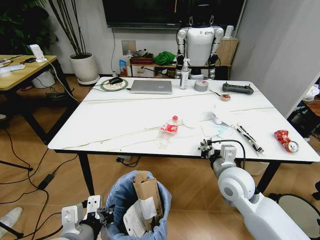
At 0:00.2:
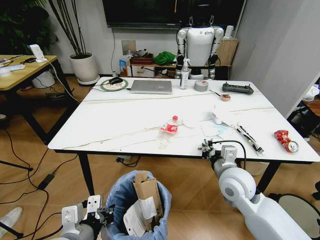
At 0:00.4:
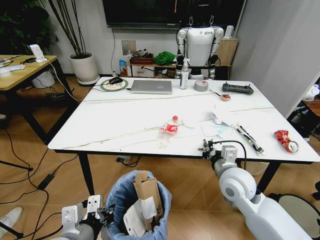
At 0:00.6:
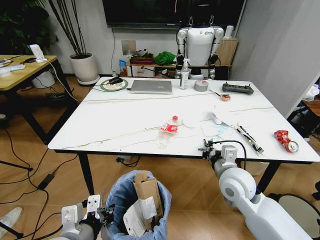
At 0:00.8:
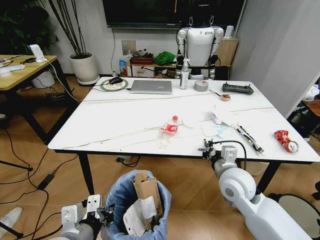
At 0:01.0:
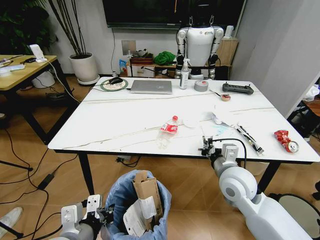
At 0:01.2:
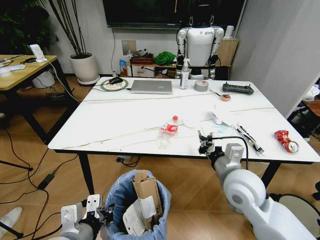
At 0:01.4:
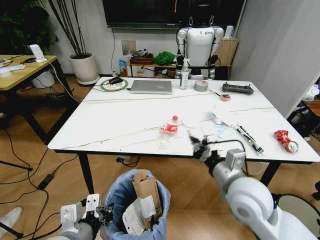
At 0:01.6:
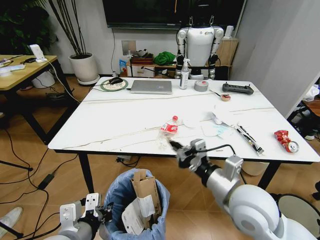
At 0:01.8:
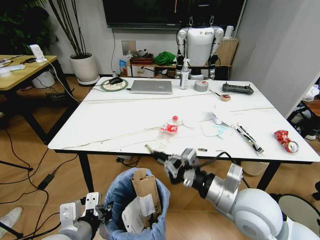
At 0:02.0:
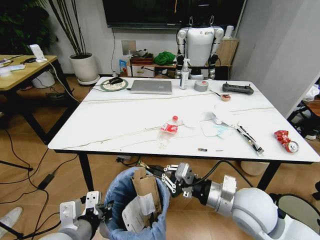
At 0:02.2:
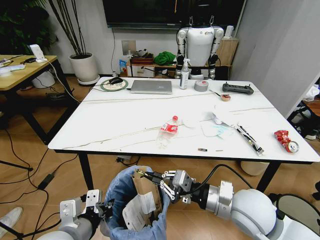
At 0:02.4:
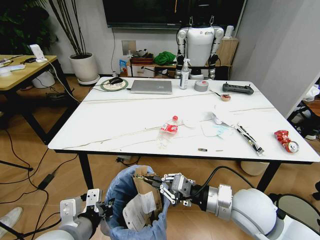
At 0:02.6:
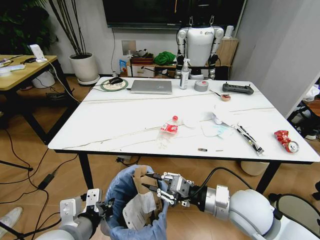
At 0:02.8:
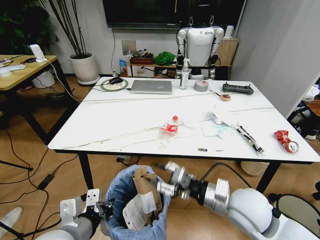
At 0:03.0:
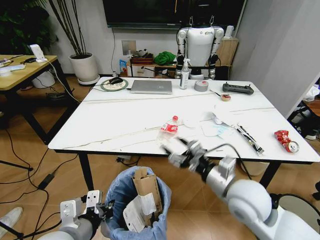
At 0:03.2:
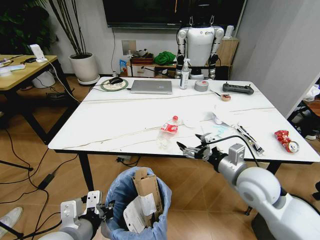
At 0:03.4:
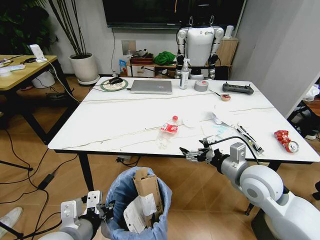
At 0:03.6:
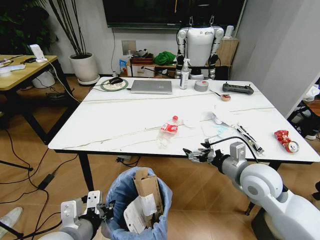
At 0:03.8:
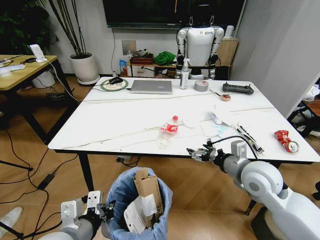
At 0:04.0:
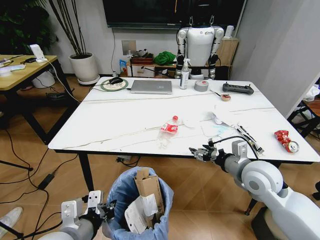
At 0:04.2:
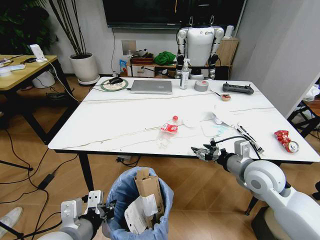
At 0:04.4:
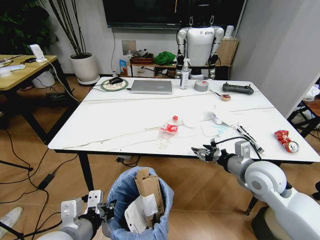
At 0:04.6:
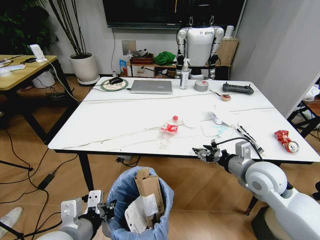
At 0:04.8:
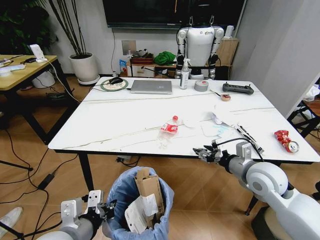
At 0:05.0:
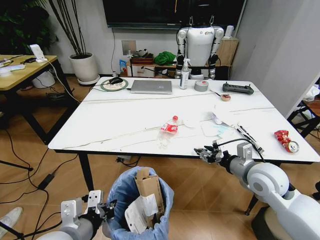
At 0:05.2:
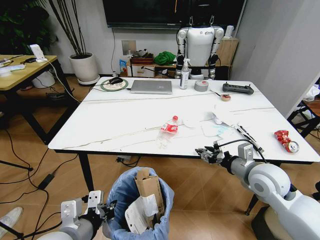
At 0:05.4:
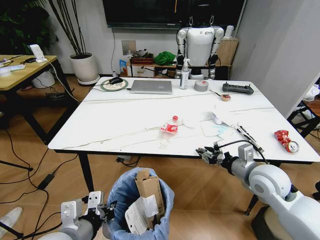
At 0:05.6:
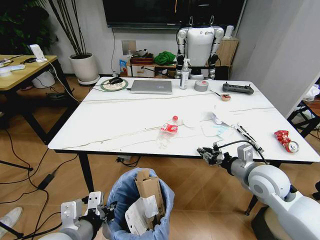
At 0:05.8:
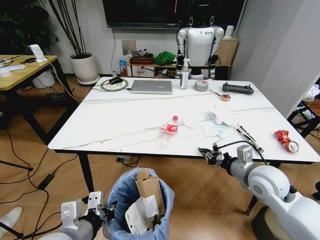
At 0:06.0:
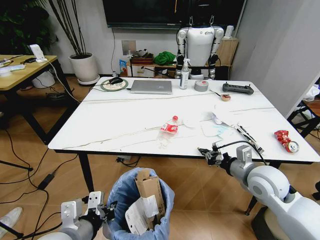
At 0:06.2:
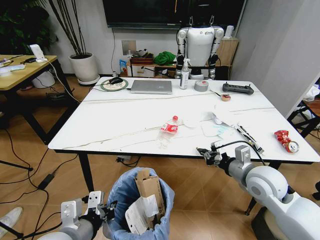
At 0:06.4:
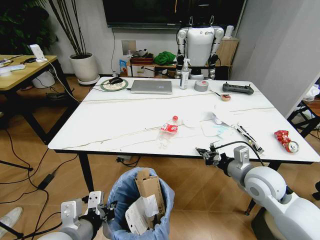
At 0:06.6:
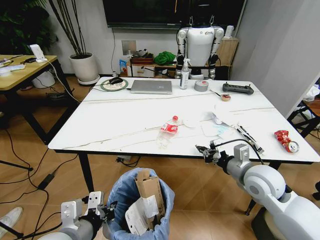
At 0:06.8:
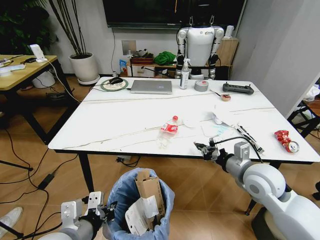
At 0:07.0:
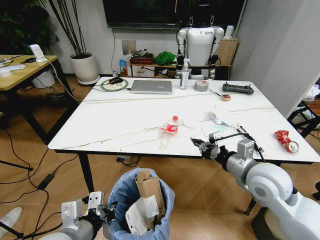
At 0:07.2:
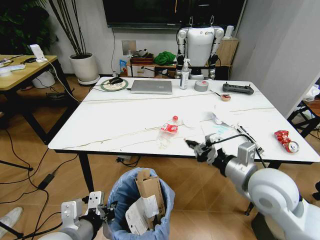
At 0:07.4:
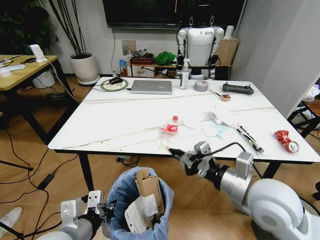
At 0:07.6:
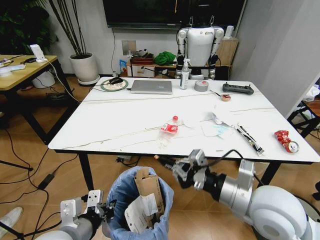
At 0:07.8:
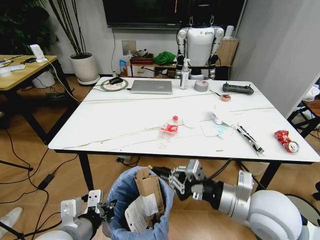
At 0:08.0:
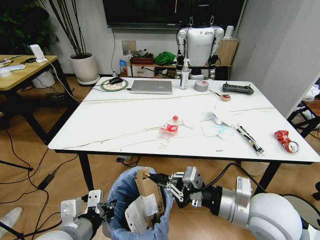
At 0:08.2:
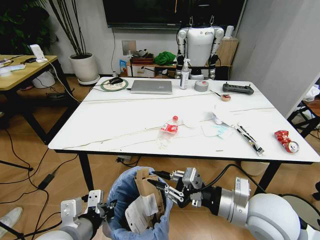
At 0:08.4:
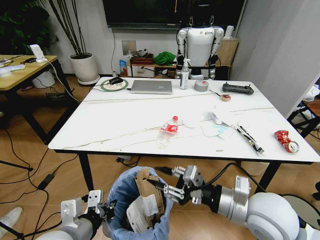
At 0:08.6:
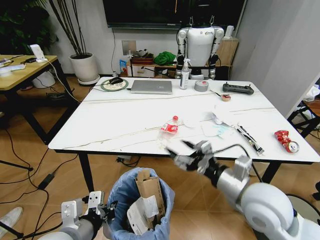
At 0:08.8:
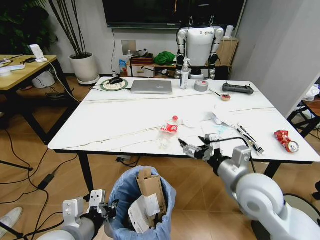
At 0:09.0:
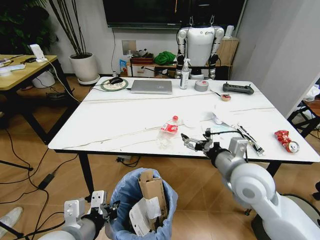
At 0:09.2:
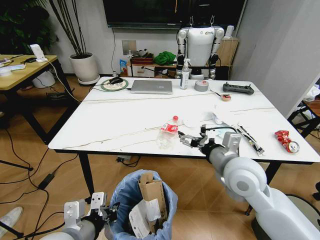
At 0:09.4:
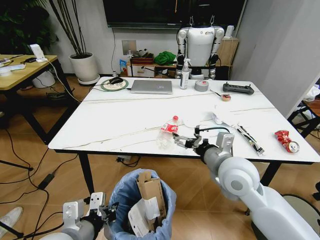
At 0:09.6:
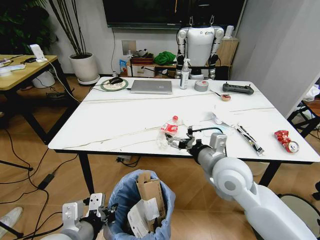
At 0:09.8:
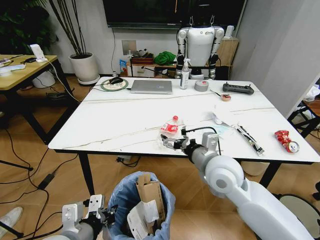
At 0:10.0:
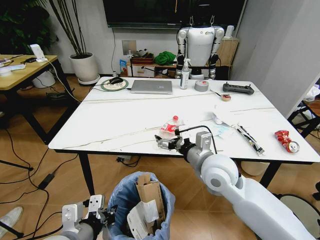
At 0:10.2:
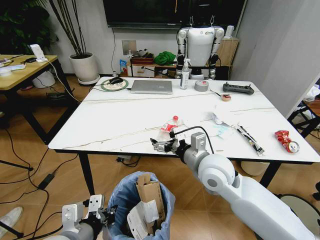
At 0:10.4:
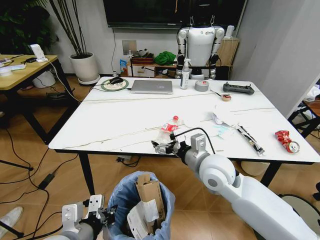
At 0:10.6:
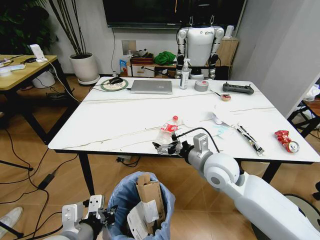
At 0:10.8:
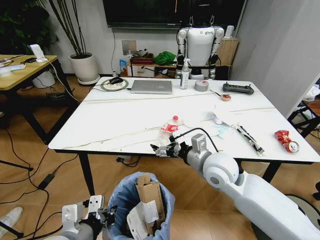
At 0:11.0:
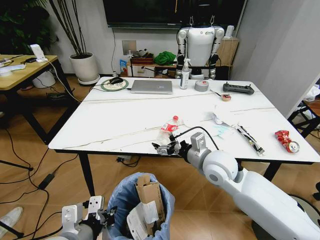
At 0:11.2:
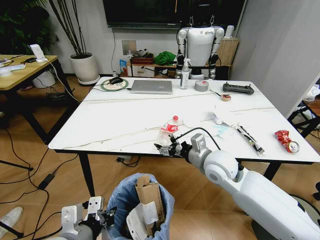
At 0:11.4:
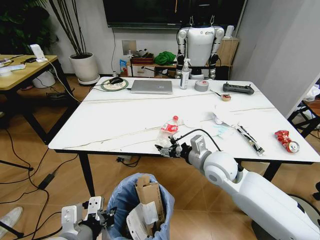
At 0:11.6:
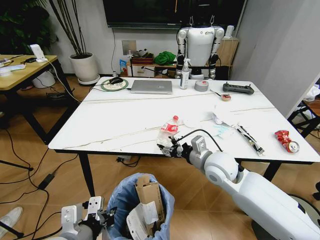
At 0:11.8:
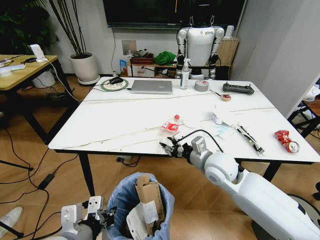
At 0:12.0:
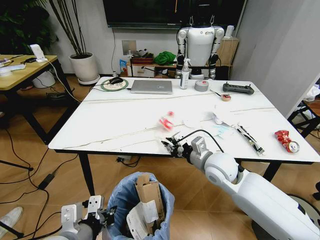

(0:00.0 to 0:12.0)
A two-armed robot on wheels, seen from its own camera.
Task of the whole recording: Pick up the trash bin and place the trash from the table into it.
0:00.0 - 0:01.6: The right gripper goes some 10 cm backward and upward.
0:01.6 - 0:03.0: The right gripper opens.
0:03.0 - 0:04.4: The right gripper shifts approximately 10 cm to the right and forward.
0:04.4 - 0:06.0: The right gripper closes up.
0:06.0 - 0:07.6: The right gripper goes roughly 15 cm backward, upward and to the left.
0:07.6 - 0:09.0: The right gripper goes about 5 cm forward, and opens up.
0:09.0 - 0:10.4: The right gripper moves to the left, some 5 cm.
0:10.4 - 0:12.0: The right gripper moves approximately 5 cm, and closes up.

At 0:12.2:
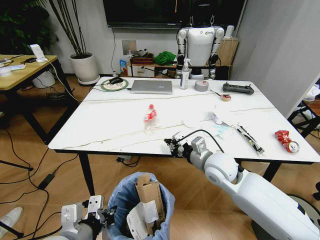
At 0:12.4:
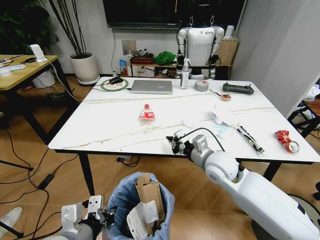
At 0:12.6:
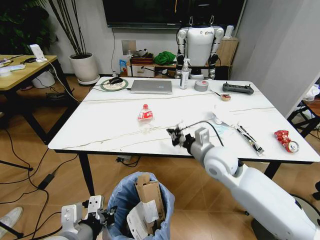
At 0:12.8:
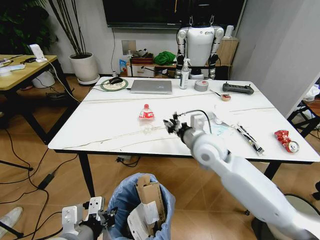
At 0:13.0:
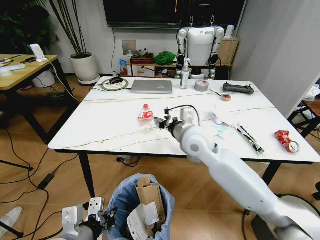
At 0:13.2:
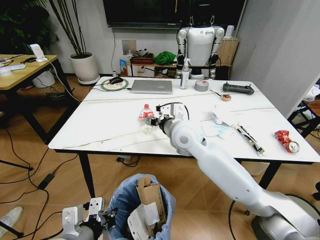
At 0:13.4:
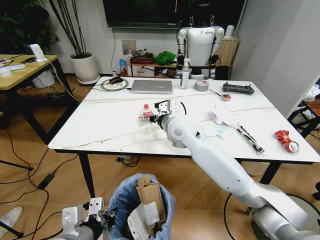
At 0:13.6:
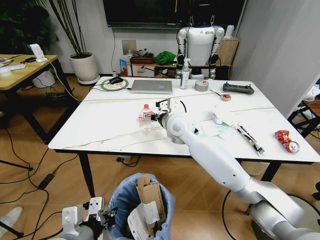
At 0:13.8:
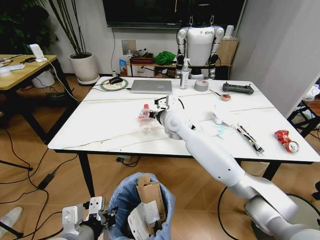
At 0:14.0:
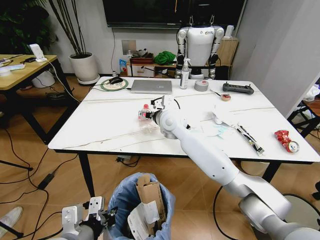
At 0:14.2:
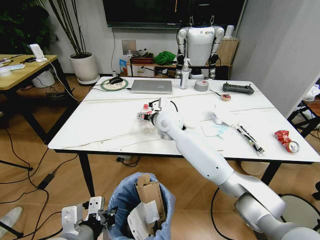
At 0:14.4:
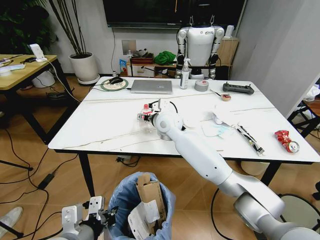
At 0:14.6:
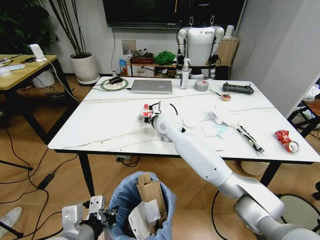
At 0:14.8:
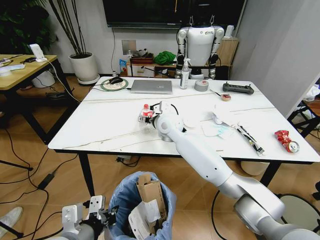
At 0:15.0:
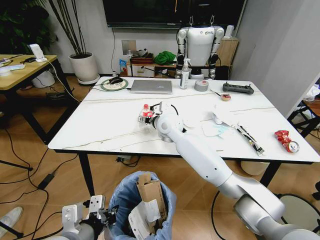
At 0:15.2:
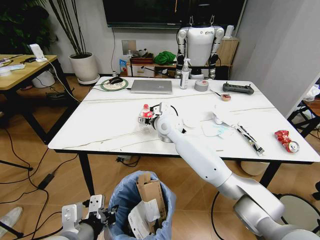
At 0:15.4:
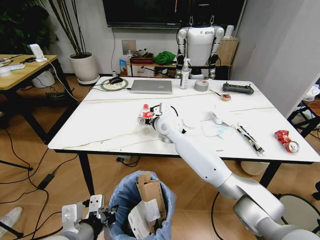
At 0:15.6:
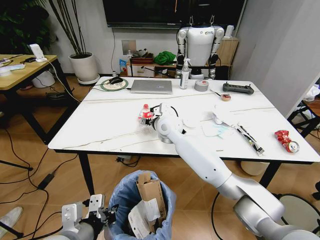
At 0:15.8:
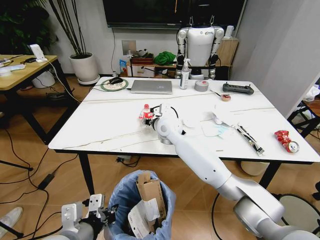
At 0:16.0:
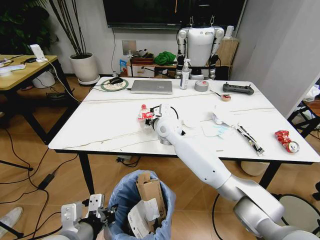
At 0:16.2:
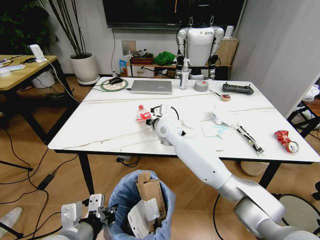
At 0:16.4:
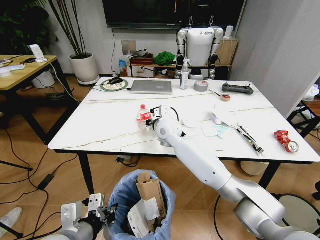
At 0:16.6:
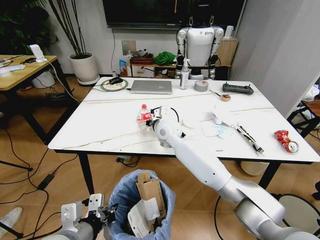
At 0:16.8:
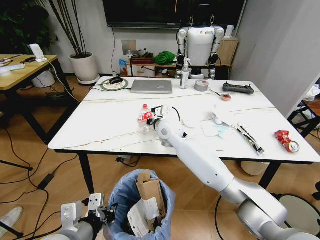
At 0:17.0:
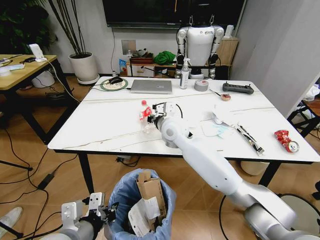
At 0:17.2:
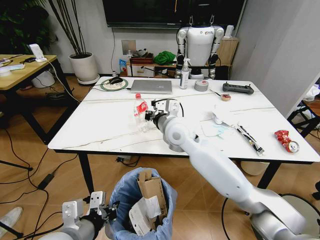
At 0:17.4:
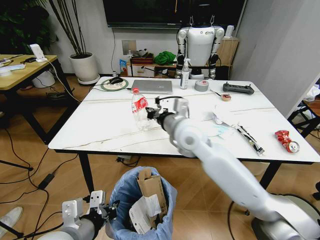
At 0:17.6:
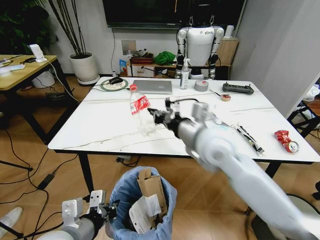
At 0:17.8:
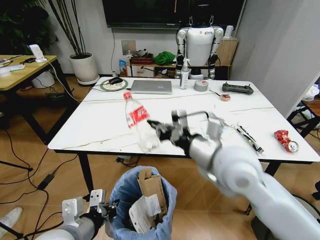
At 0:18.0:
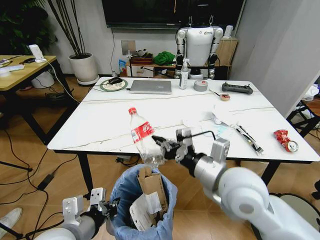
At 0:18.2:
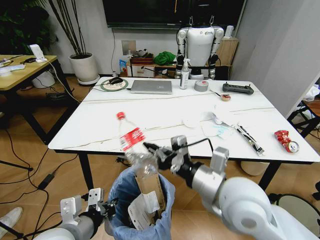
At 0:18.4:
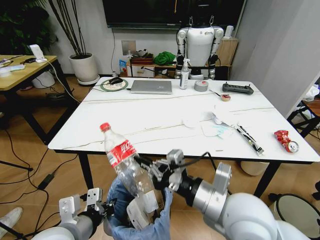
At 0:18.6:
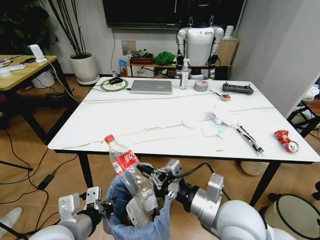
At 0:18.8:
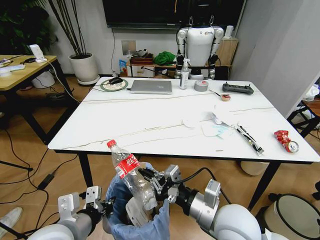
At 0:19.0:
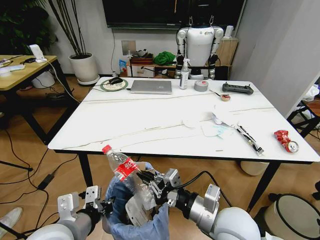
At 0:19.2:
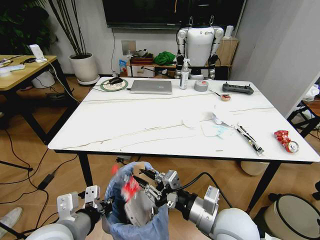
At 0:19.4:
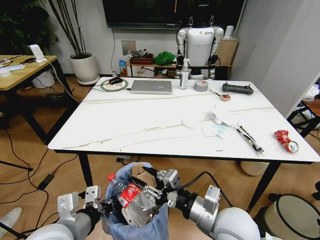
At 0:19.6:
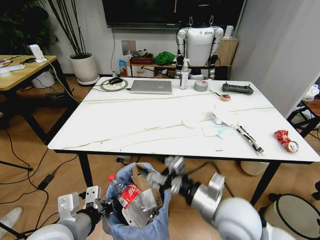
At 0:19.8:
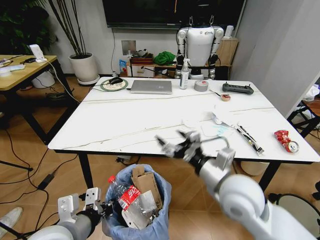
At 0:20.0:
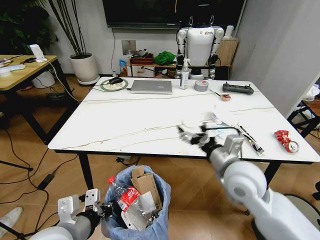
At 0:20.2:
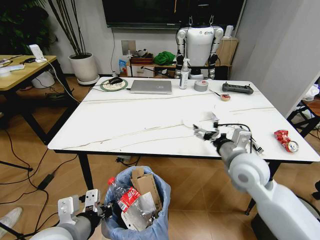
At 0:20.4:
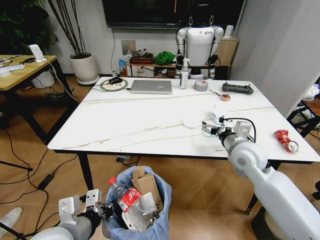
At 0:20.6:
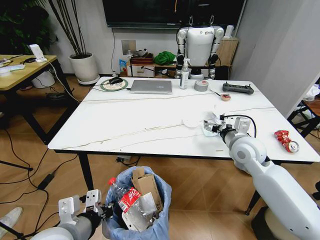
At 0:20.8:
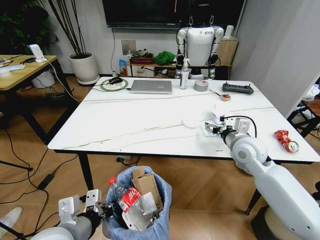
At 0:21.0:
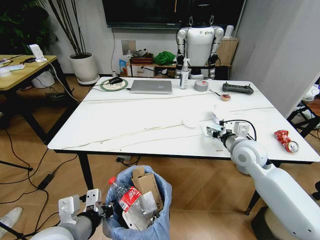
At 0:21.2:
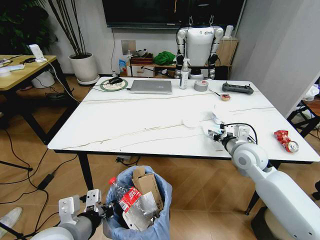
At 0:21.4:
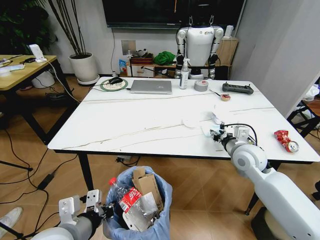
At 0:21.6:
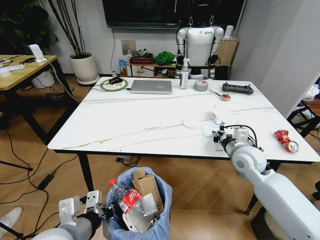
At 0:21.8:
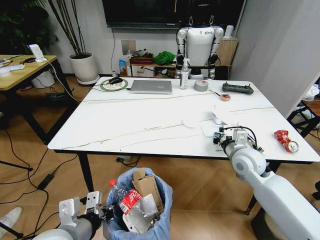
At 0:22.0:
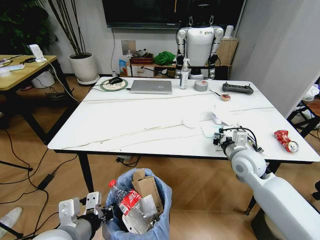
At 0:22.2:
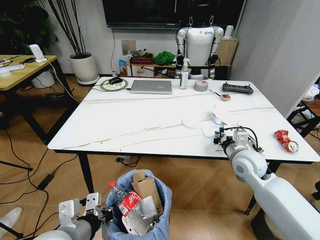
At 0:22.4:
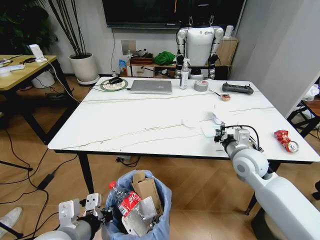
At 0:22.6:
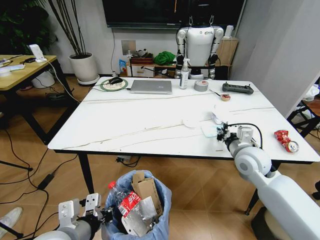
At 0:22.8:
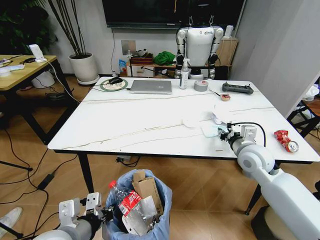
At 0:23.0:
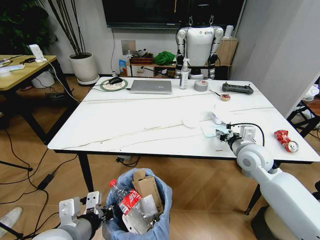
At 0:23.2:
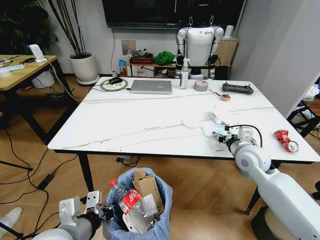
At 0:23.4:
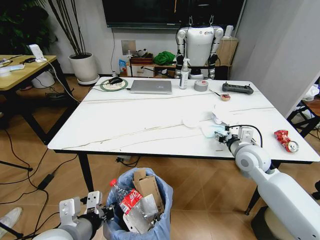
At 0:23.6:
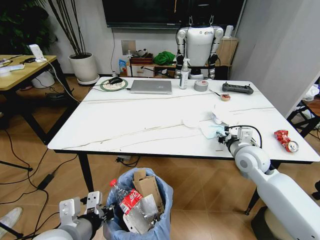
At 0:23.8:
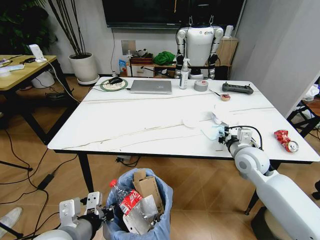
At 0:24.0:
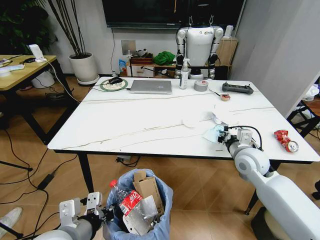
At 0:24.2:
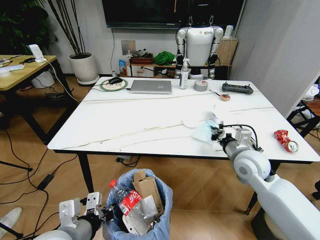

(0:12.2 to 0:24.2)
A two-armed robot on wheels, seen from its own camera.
Task of the whole recording: Pick up the trash bin and place the trash from the table into it.
0:12.2 - 0:13.8: The right gripper shifts some 20 cm forward, to the left and upward, and opens.
0:13.8 - 0:15.2: The right gripper shifts by roughly 5 cm.
0:15.2 - 0:16.6: The right gripper closes its fingers.
0:16.6 - 0:18.2: The right gripper travels backward and to the right by about 30 cm.
0:18.2 - 0:19.8: The right gripper opens.
0:19.8 - 0:21.2: The right gripper is displaced forward and to the right by approximately 20 cm.
0:21.2 - 0:22.6: The right gripper closes.
0:22.6 - 0:24.2: The right gripper opens and closes again.
